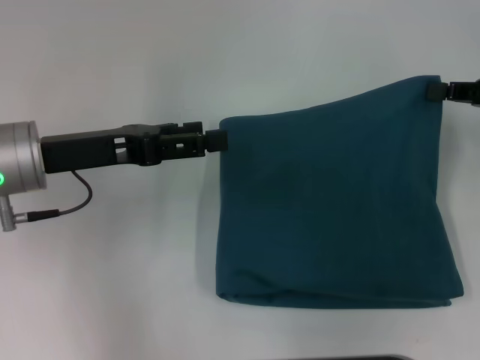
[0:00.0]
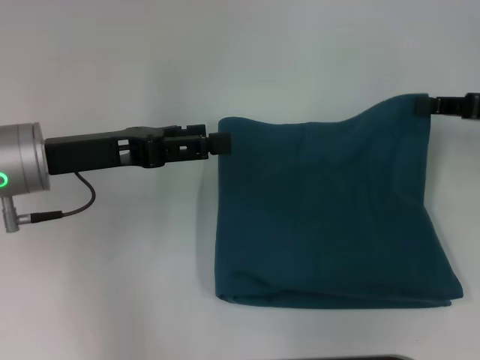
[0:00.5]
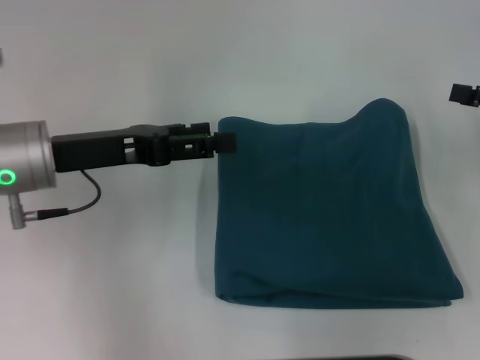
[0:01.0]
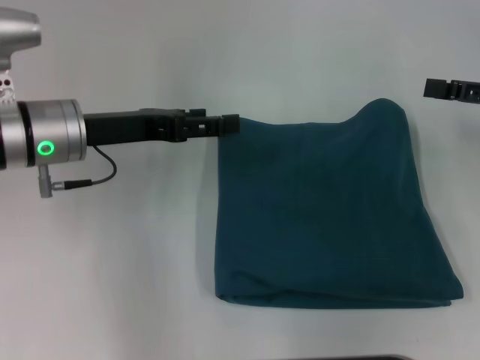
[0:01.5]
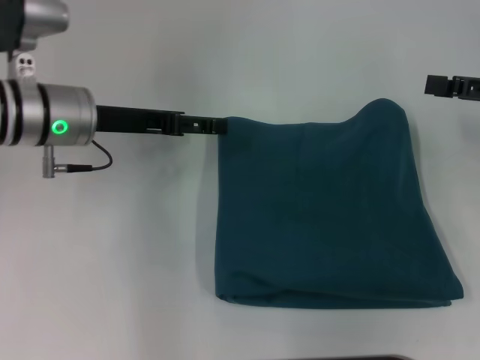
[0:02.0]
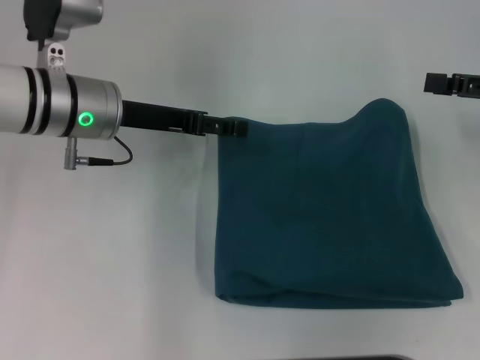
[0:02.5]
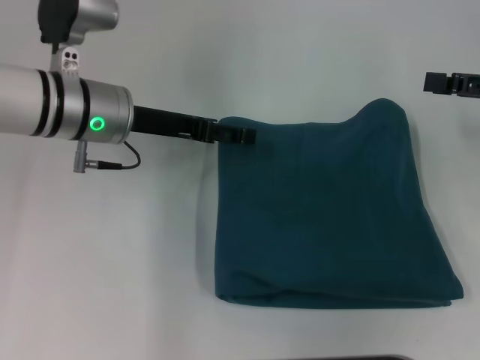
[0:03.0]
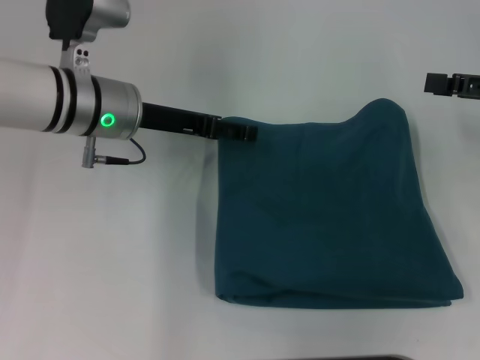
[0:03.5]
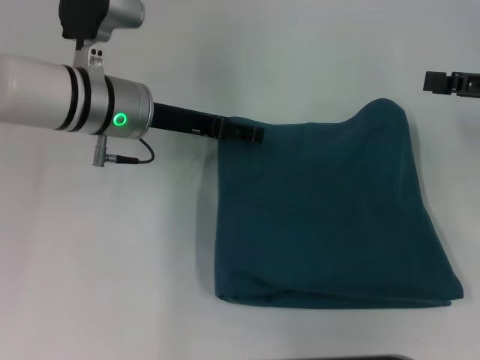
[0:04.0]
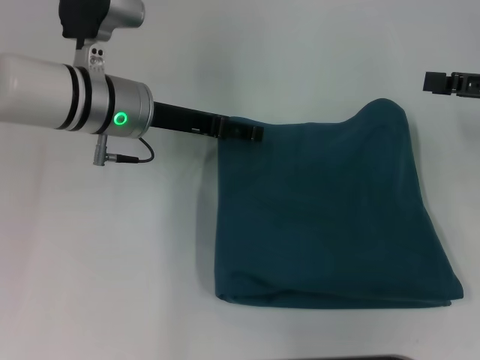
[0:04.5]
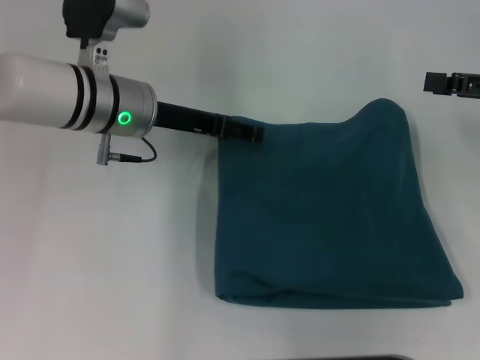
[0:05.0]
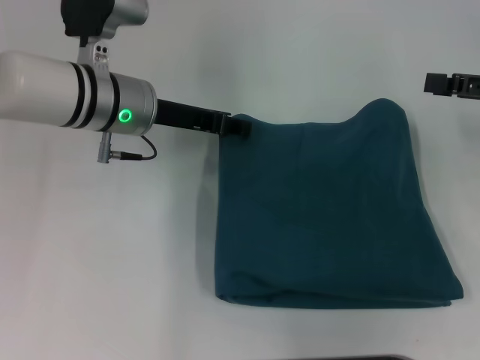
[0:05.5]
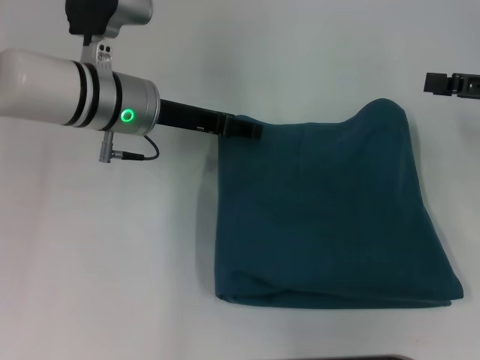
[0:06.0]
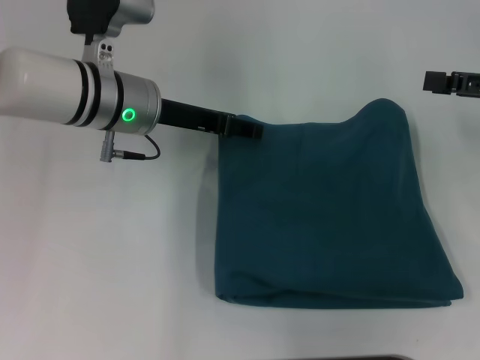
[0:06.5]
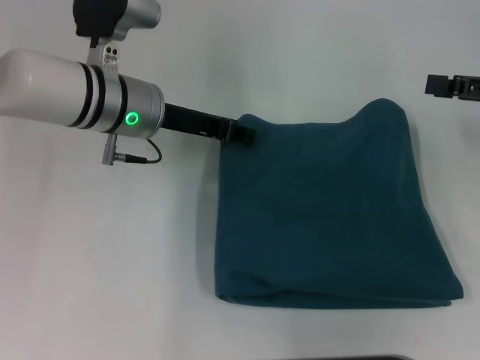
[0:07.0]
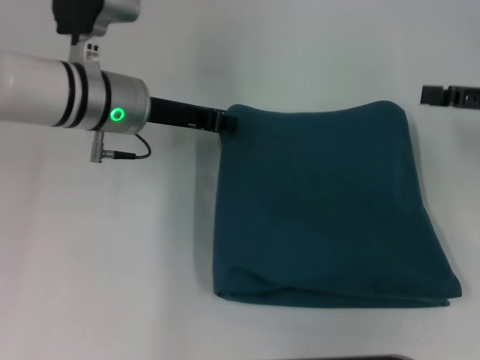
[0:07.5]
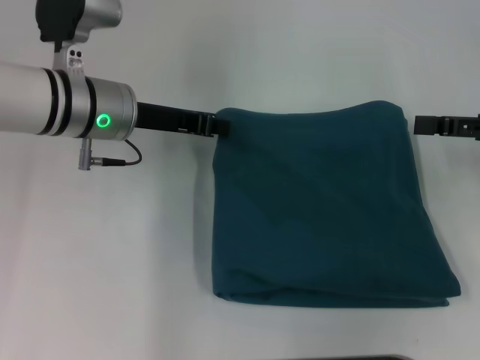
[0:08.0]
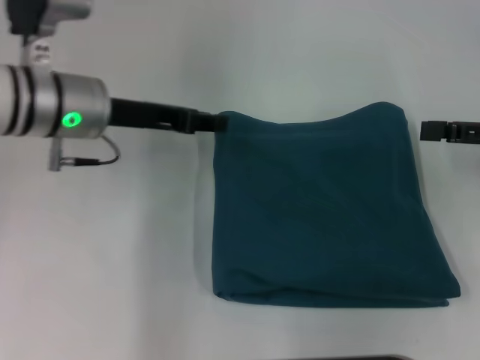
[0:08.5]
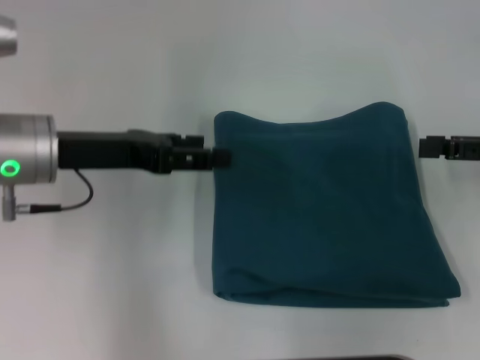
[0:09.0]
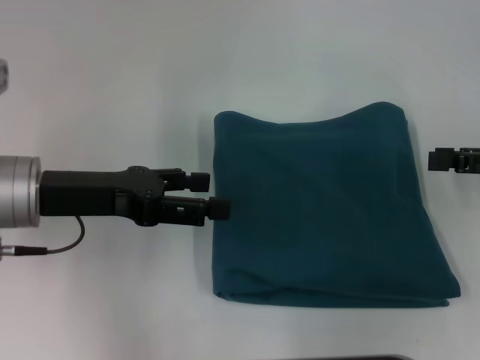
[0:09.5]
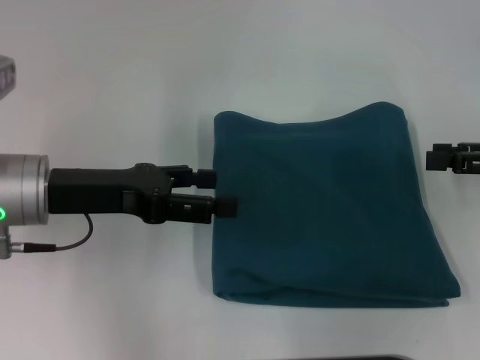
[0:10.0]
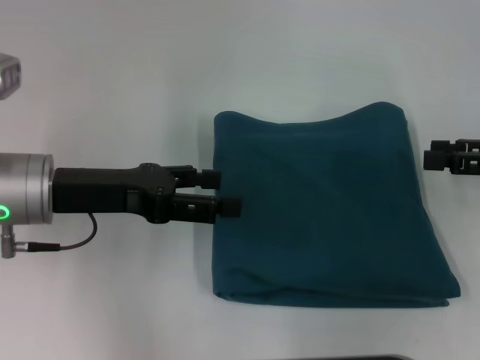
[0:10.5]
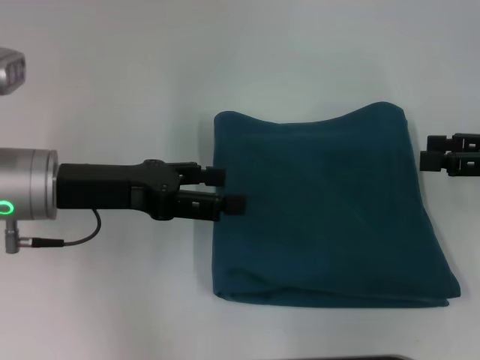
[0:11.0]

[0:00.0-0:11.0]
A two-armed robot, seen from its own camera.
0:00.0 to 0:02.0: The left gripper moves forward, approximately 5 cm; the right gripper opens.
0:02.0 to 0:03.5: The grippers make only small movements.
0:03.5 to 0:05.5: The left gripper closes its fingers.
0:05.5 to 0:07.5: The left gripper closes up.
0:07.5 to 0:09.0: The left gripper heads backward and to the left, covering about 10 cm, and opens.
0:09.0 to 0:11.0: There are only small adjustments of the grippers.

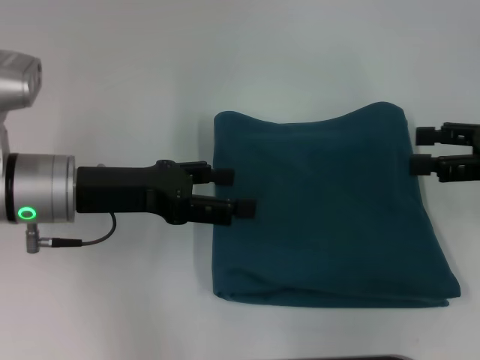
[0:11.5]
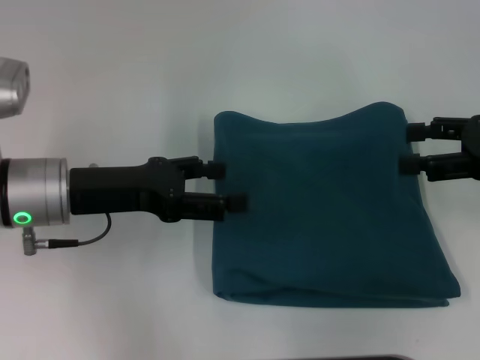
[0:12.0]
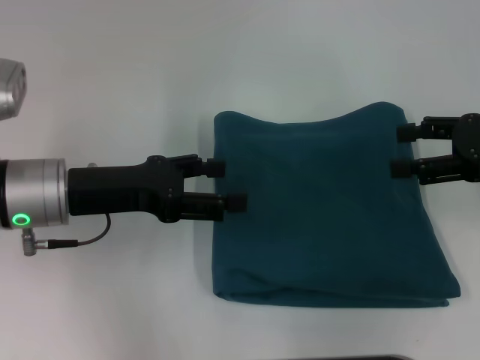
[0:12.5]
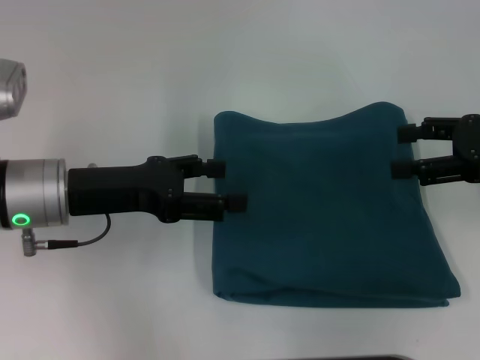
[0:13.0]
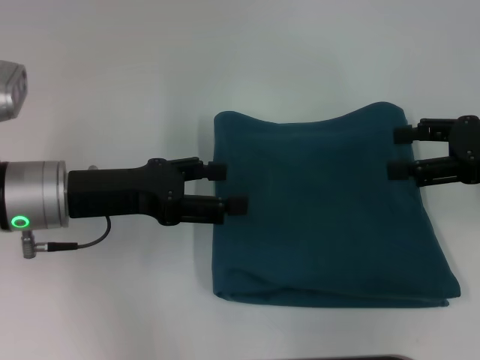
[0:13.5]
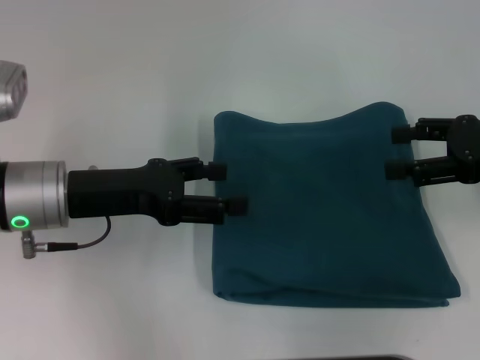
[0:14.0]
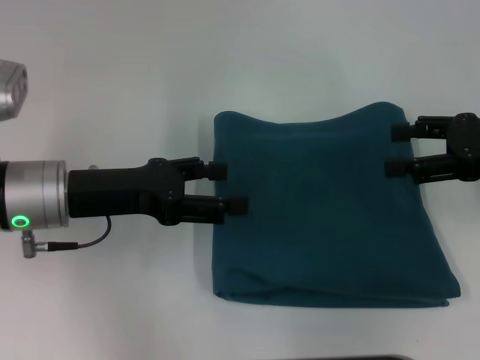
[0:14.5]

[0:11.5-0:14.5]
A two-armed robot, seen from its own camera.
0:11.5 to 0:13.0: The grippers make only small movements.
0:13.0 to 0:14.5: Both grippers stay about where they are.

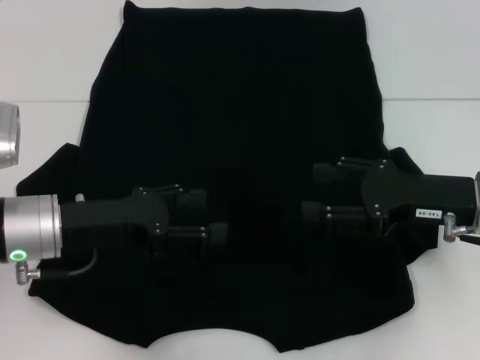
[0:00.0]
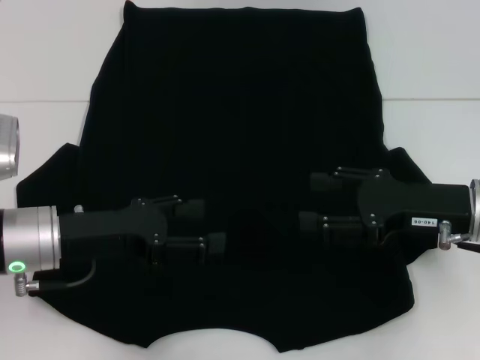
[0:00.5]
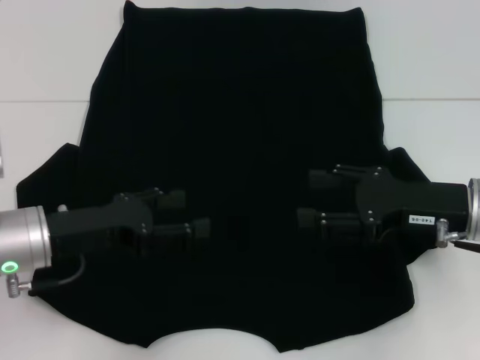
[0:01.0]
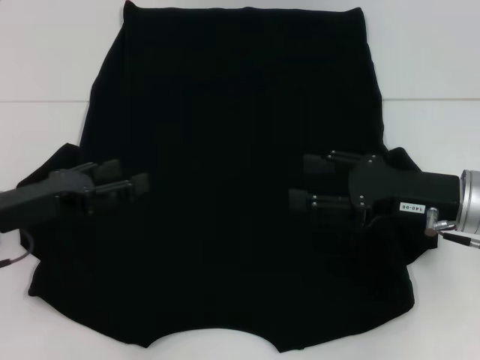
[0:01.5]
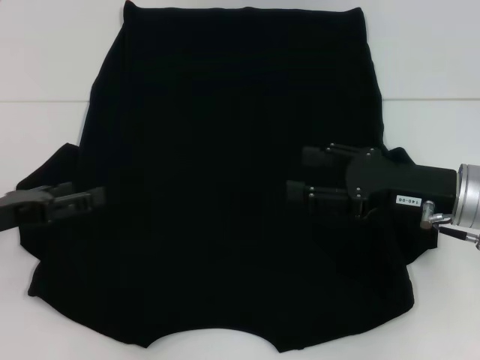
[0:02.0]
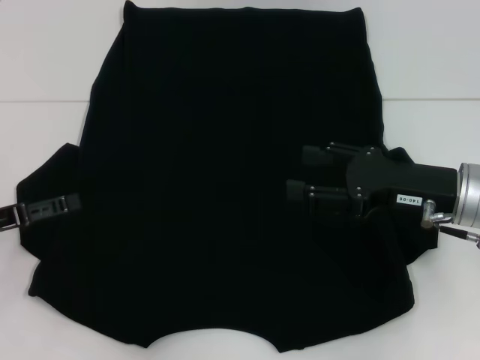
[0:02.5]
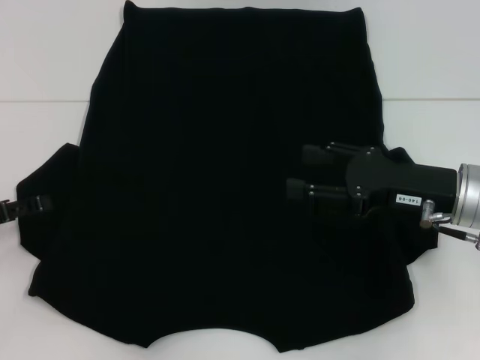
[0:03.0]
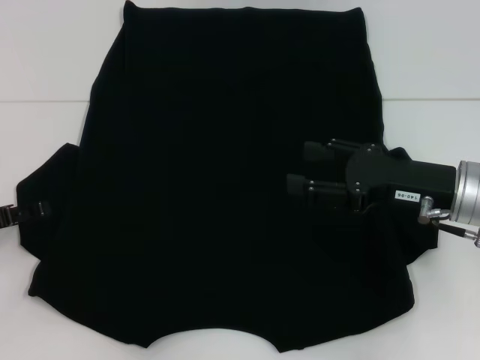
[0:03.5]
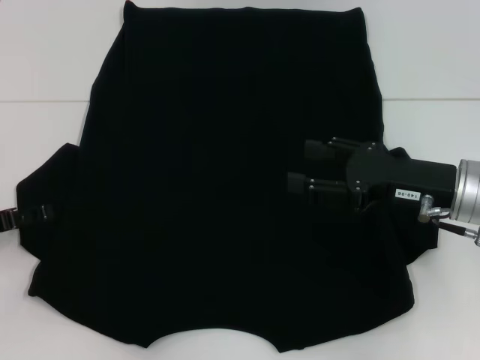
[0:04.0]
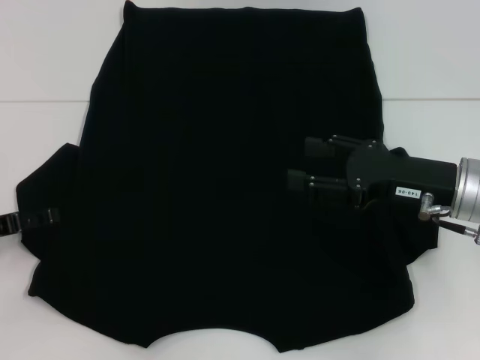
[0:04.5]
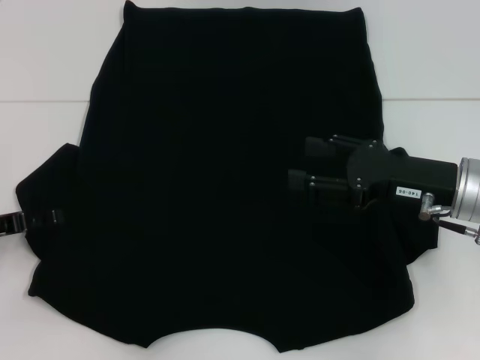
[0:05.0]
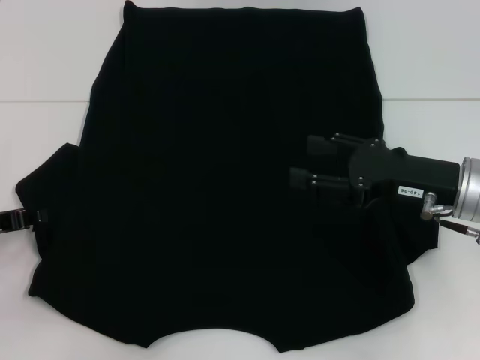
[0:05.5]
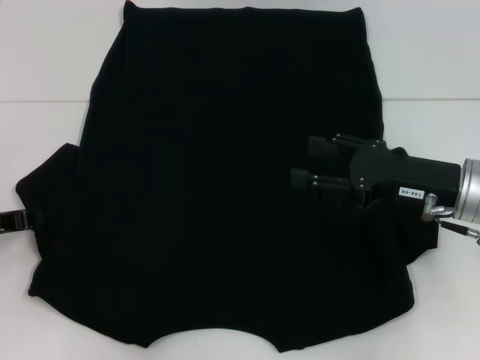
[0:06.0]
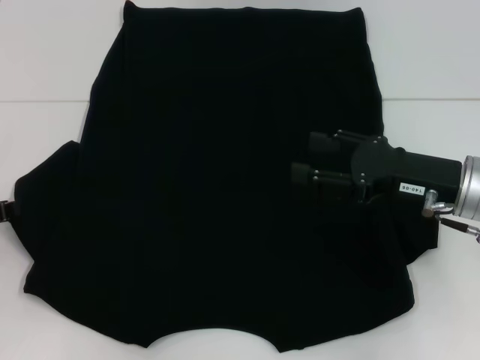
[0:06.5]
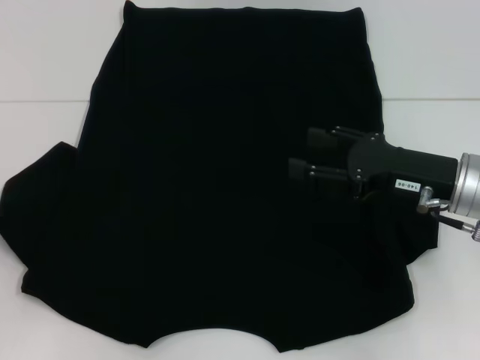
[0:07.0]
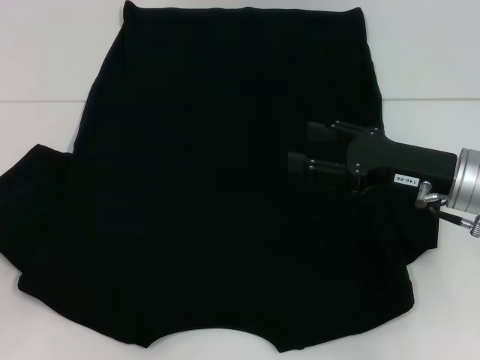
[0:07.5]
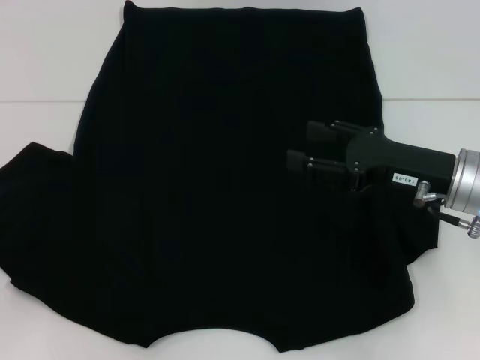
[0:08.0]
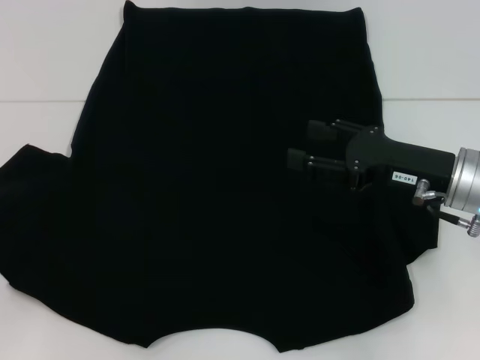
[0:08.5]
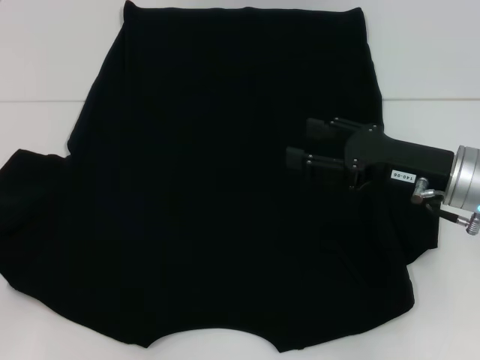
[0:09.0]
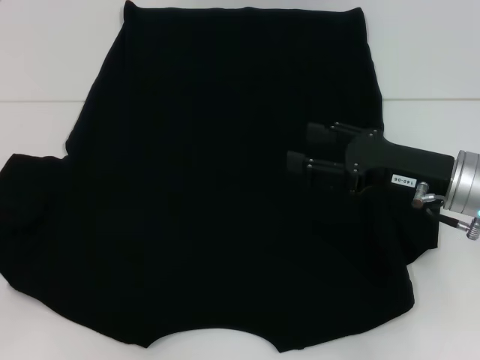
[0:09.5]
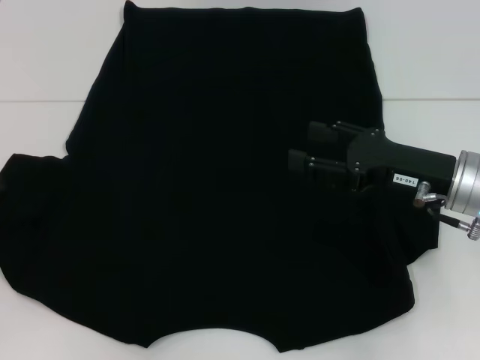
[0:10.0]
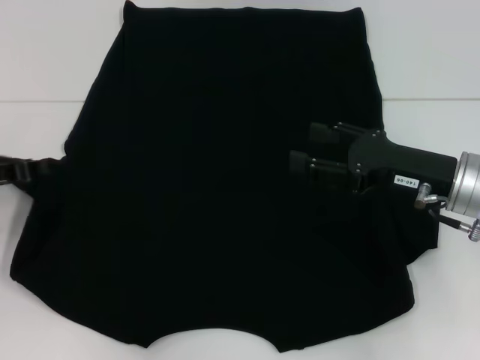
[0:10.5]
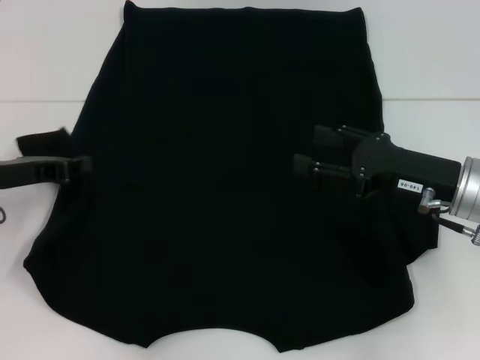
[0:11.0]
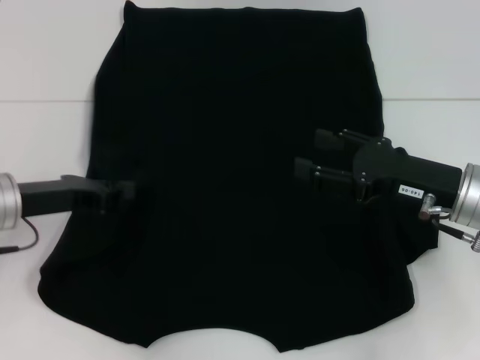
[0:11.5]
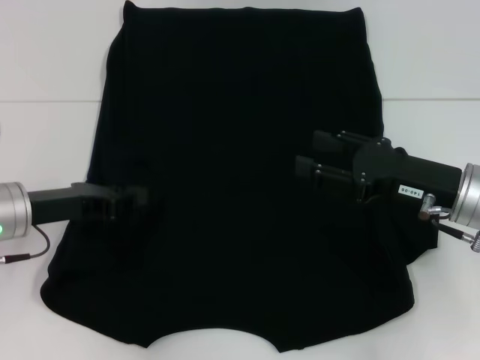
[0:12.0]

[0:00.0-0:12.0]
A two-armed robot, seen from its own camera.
0:00.0 to 0:02.0: The left gripper travels to the left by some 10 cm.
0:04.0 to 0:06.0: The left gripper closes.
0:06.0 to 0:08.0: The left gripper shifts by about 5 cm.
0:08.0 to 0:10.0: The grippers make only small movements.
0:10.0 to 0:12.0: The left gripper is displaced to the right by about 10 cm.
